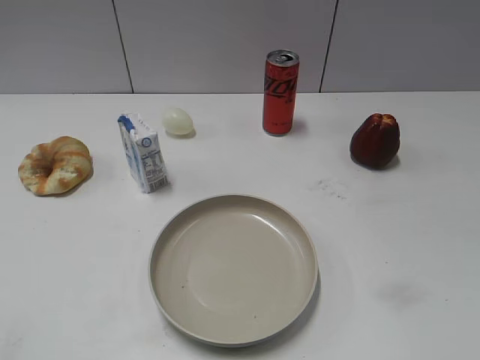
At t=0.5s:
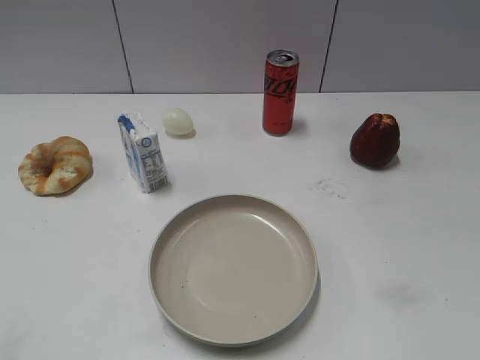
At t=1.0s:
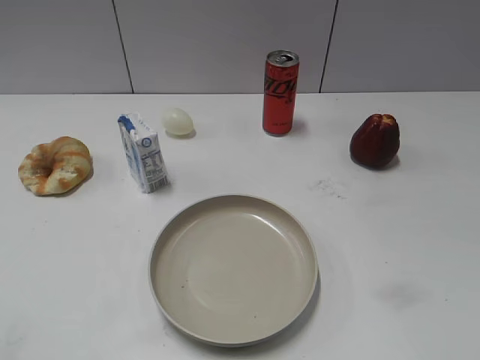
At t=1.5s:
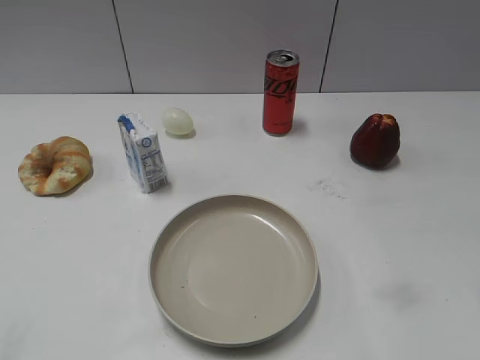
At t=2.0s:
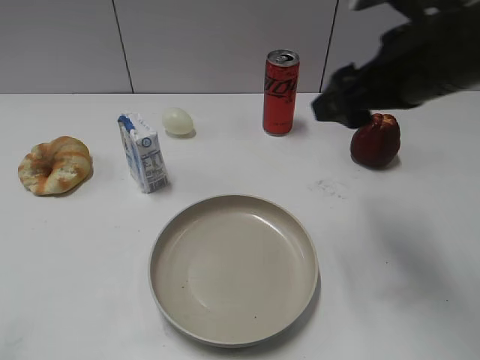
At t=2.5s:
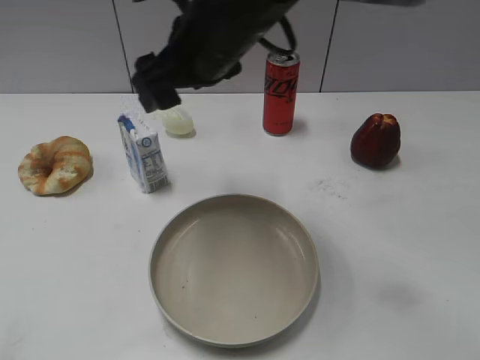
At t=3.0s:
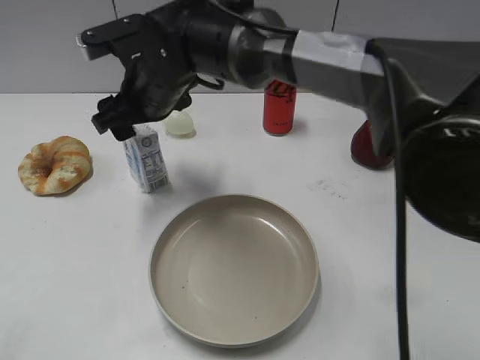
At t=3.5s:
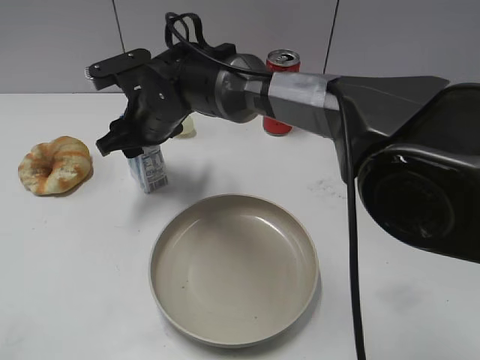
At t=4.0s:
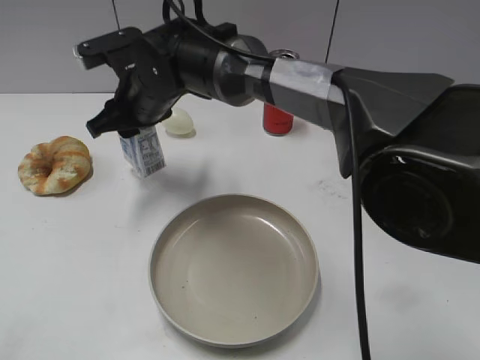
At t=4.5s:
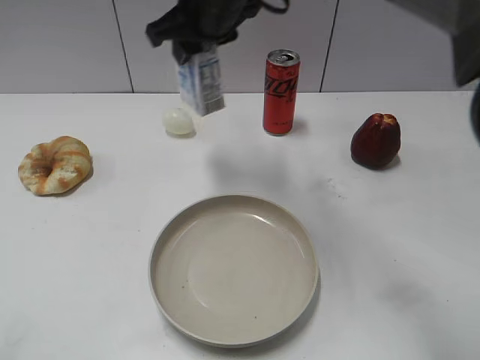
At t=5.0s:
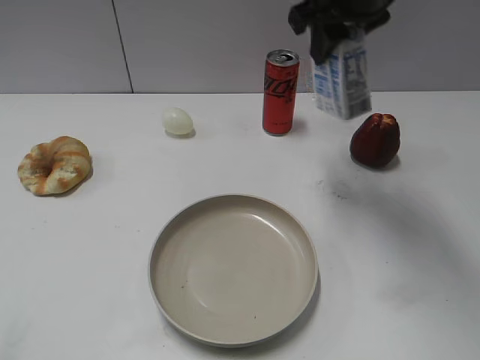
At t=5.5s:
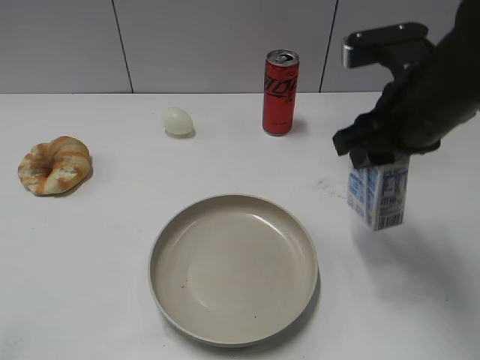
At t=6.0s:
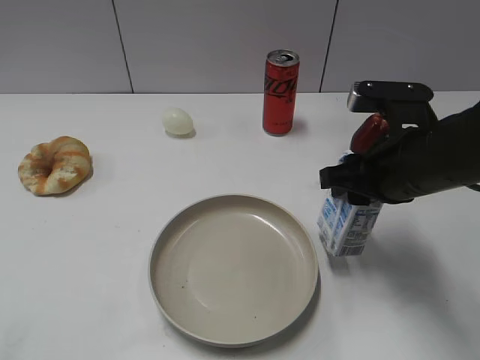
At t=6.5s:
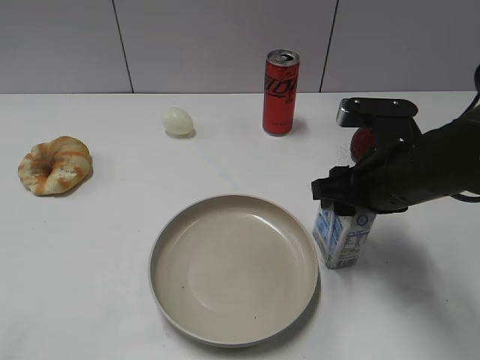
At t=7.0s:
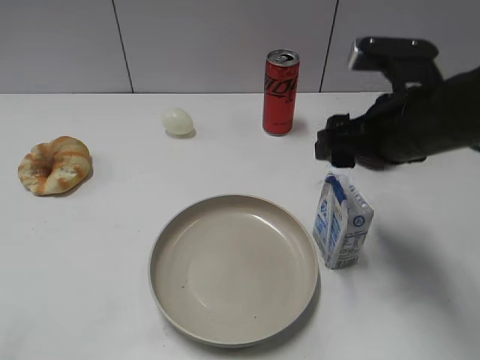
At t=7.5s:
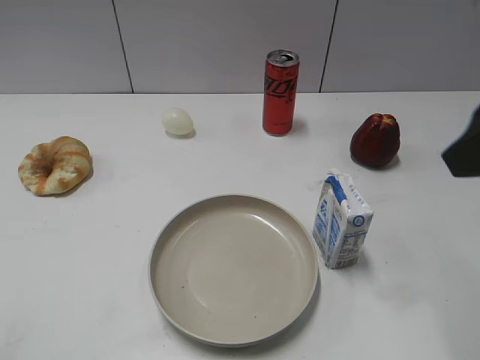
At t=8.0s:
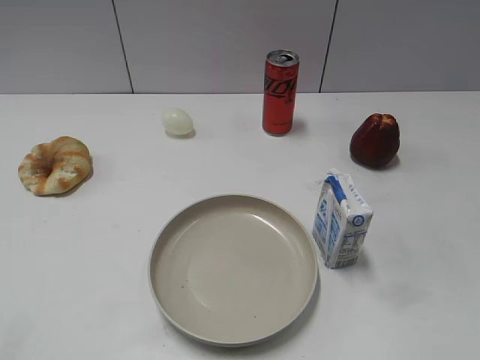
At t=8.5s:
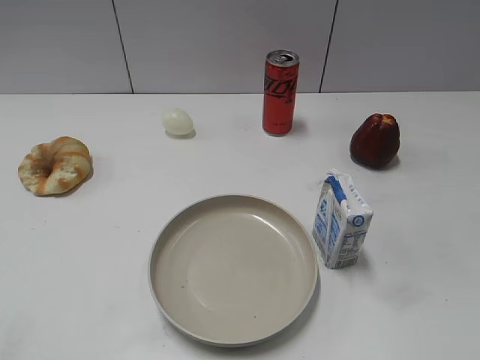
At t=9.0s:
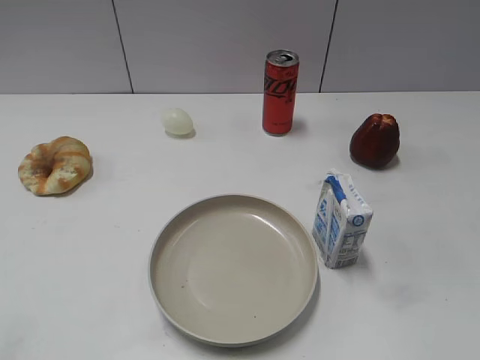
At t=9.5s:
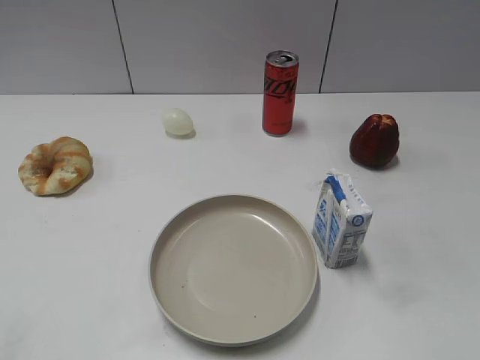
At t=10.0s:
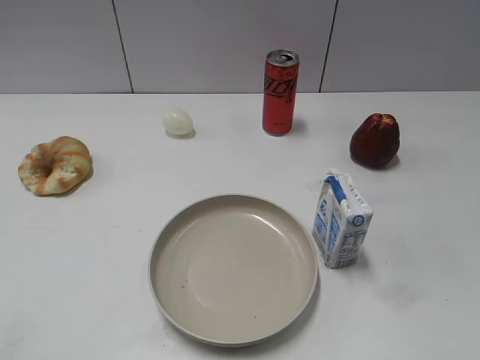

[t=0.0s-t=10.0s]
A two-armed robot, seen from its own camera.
Step, t=1.0s to t=3.5s: Grasp the milk with right gripper.
Step, t=4.0s to t=6.5s: Place the milk on the table with right gripper.
t=2.0s to t=4.0s: The right gripper heads to the left, downward and forward, covering approximately 35 cm, and closes its fingers.
t=4.0s to t=6.0s: The right gripper goes roughly 30 cm to the right and backward.
t=6.0s to t=8.0s: The right gripper travels backward, upward and to the right by about 25 cm, and opens up.

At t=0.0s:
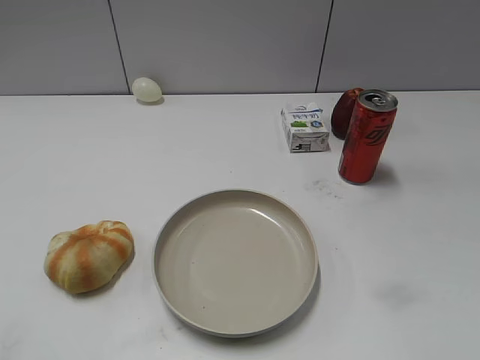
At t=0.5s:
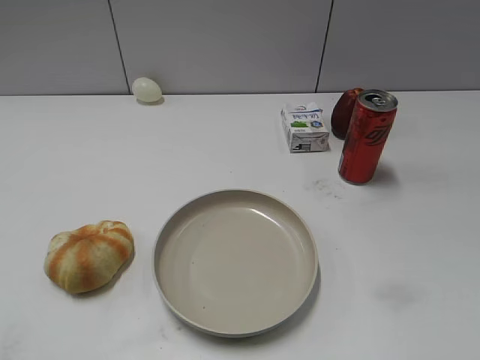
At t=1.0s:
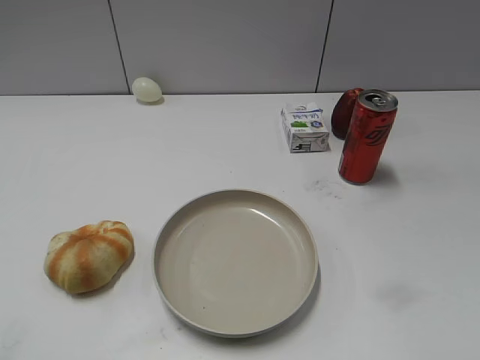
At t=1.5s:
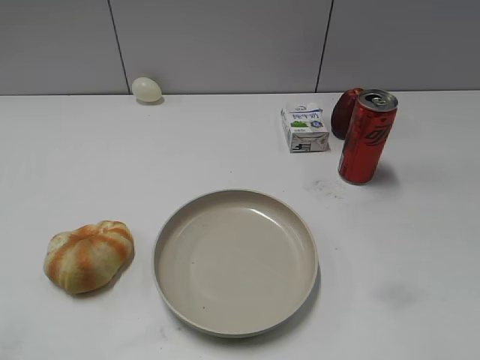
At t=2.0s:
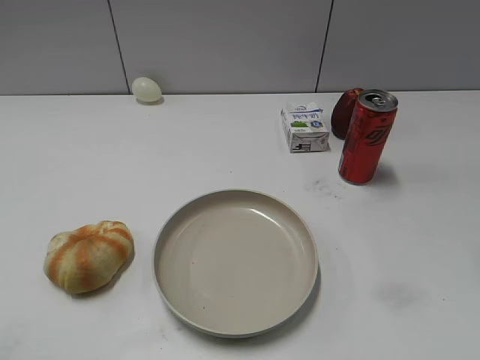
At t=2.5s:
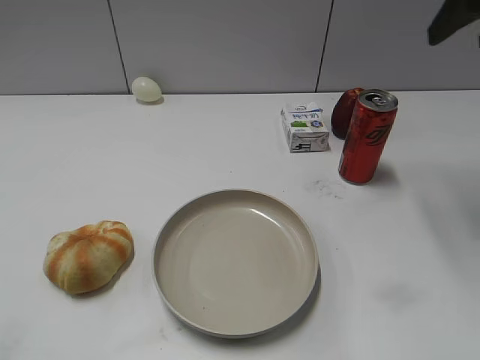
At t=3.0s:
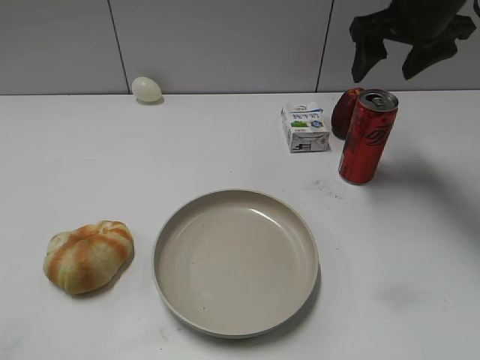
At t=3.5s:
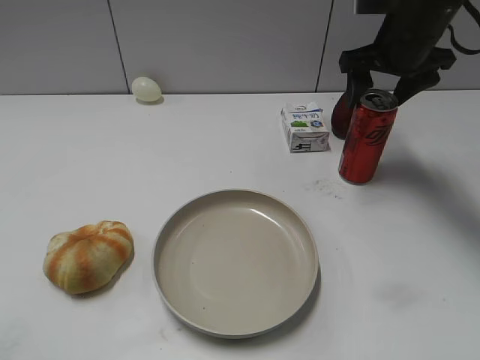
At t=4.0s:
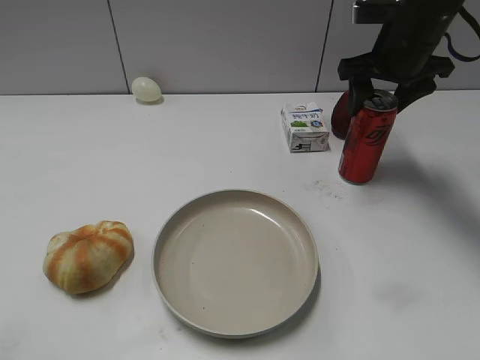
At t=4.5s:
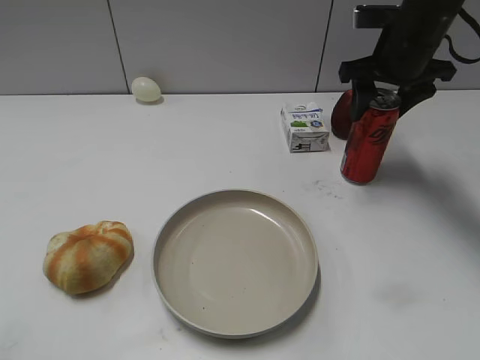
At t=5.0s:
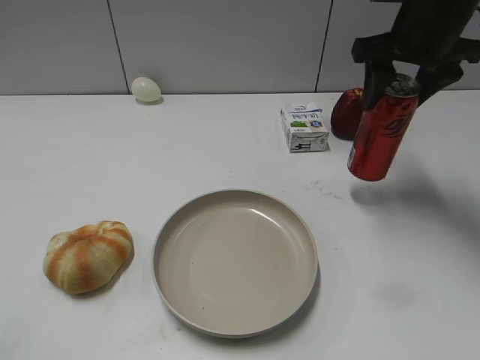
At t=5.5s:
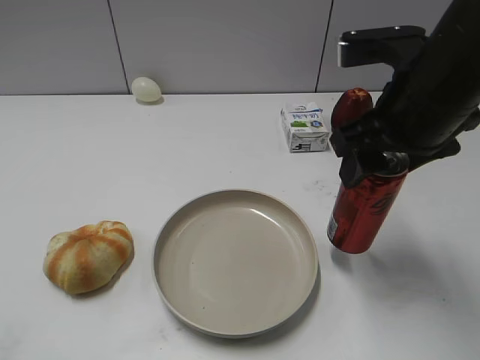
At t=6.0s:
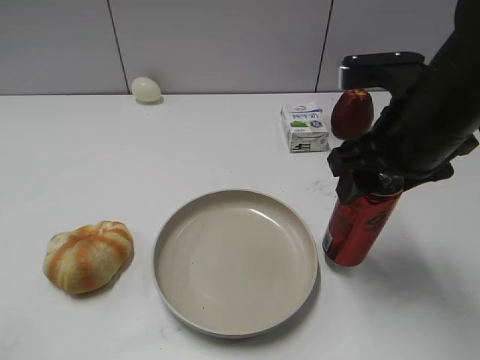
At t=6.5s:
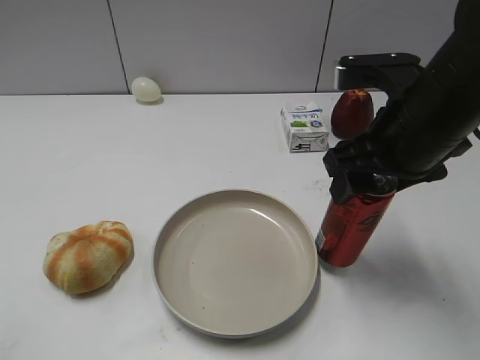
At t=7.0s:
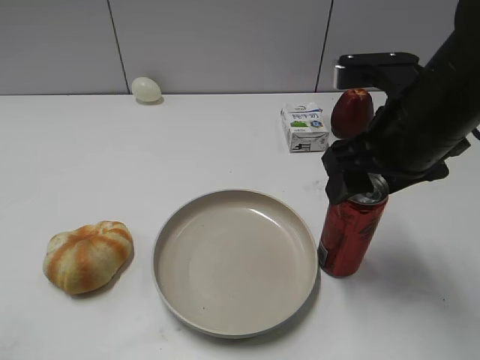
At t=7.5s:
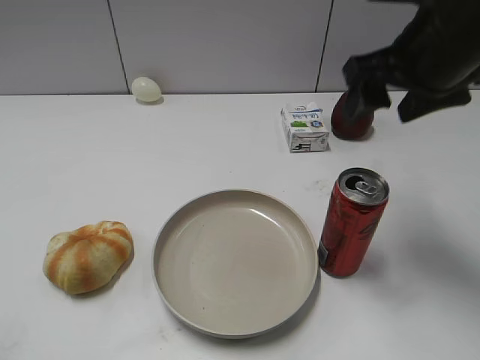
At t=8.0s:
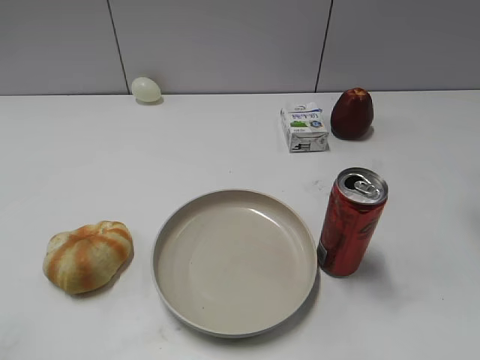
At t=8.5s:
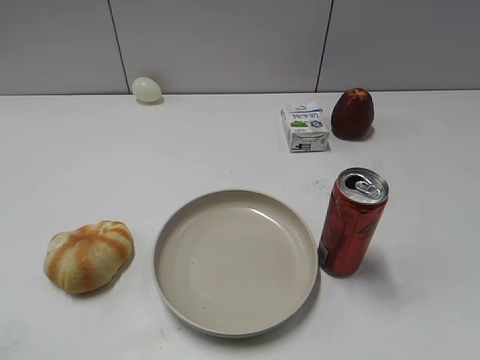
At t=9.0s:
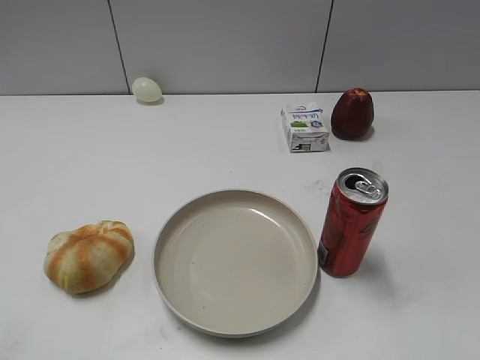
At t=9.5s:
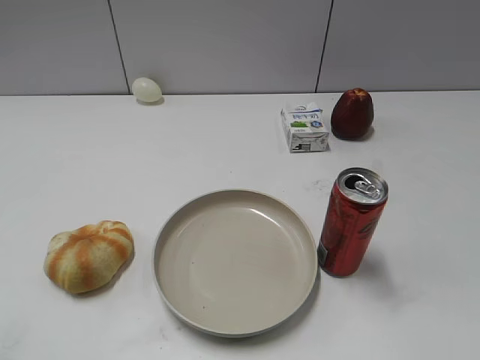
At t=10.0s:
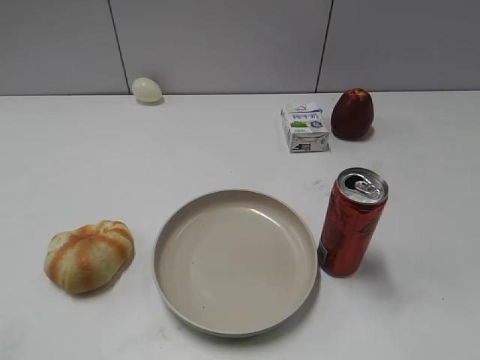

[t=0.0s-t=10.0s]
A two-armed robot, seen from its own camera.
Step, t=1.0s to t=4.0s: Grasp the cola with right gripper.
Step, t=5.0s to t=7.0s: Place the cola on the table with right gripper.
t=2.0s to t=4.0s: The right gripper heads forward and downward, covering about 30 cm, and opens and closes again.
t=4.0s to t=6.0s: The right gripper moves backward, approximately 15 cm, and closes.
t=6.0s to t=8.0s: The right gripper goes roughly 20 cm to the right, upward and forward, and opens.
